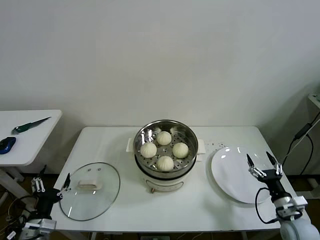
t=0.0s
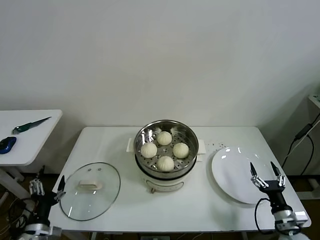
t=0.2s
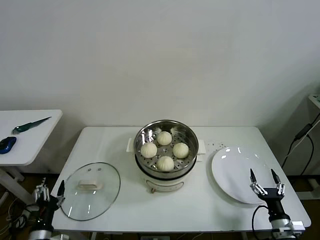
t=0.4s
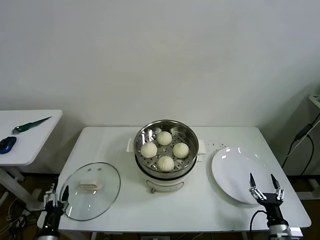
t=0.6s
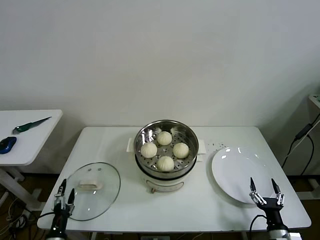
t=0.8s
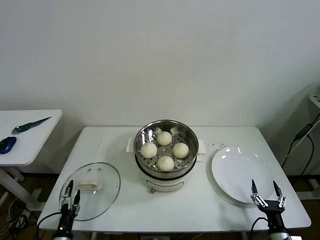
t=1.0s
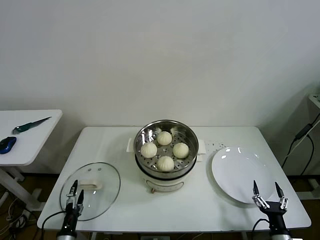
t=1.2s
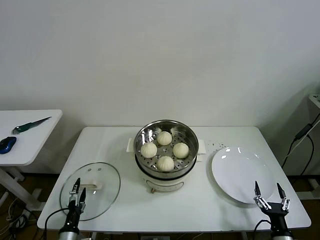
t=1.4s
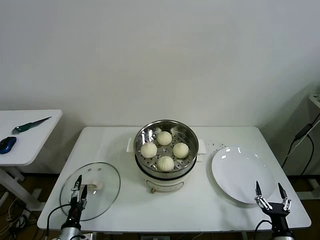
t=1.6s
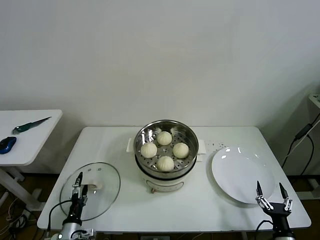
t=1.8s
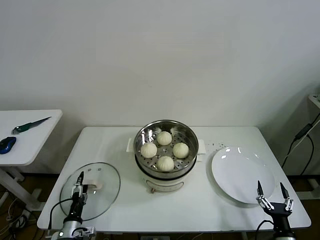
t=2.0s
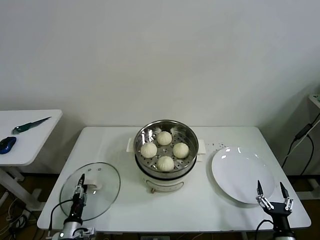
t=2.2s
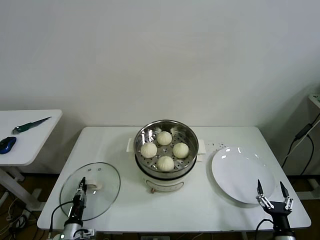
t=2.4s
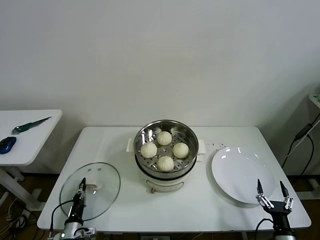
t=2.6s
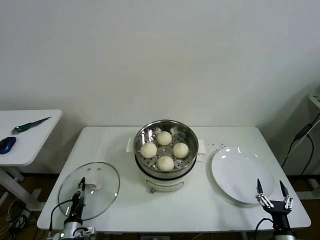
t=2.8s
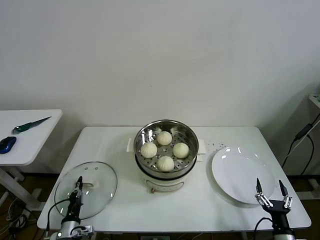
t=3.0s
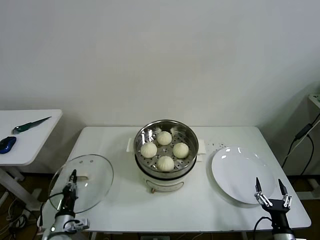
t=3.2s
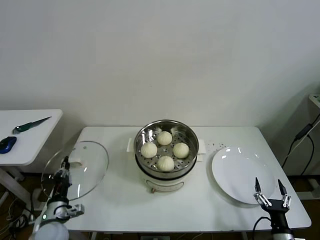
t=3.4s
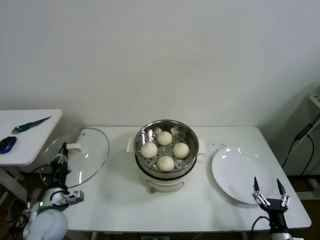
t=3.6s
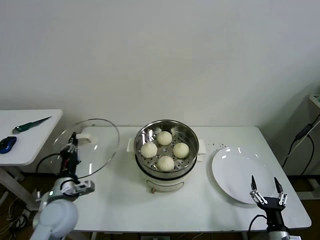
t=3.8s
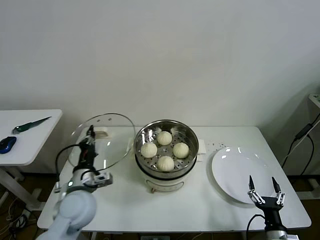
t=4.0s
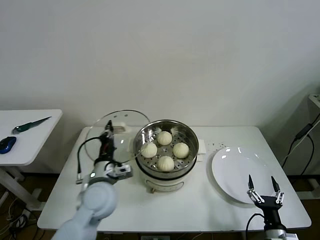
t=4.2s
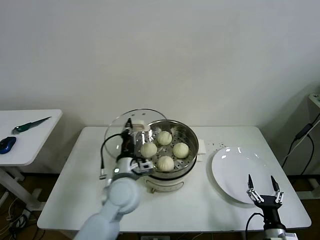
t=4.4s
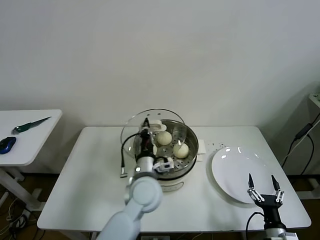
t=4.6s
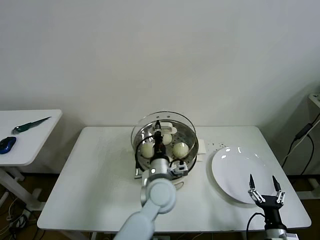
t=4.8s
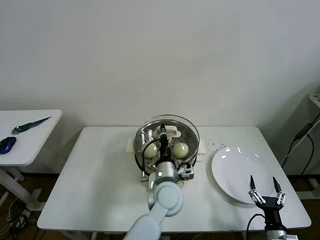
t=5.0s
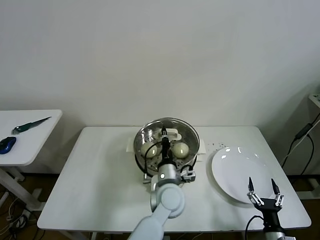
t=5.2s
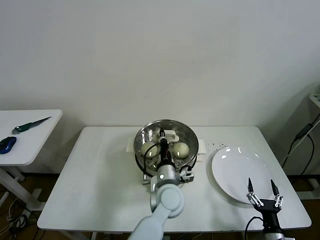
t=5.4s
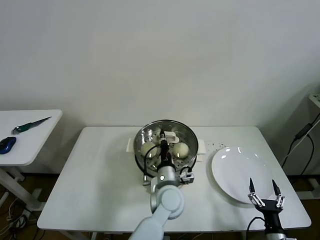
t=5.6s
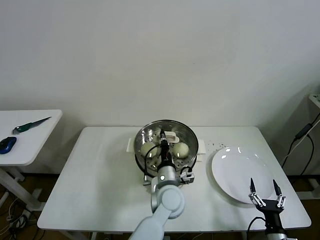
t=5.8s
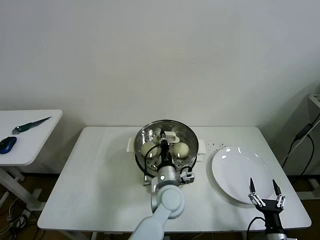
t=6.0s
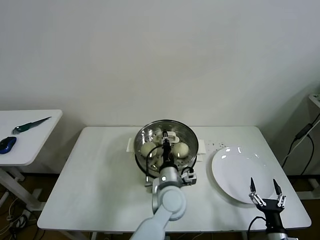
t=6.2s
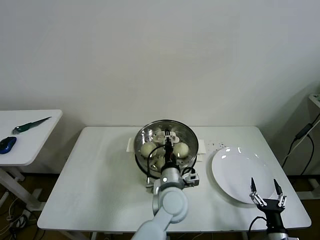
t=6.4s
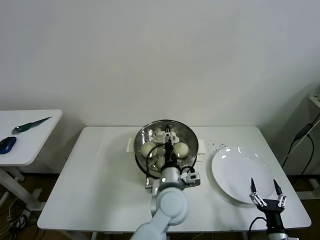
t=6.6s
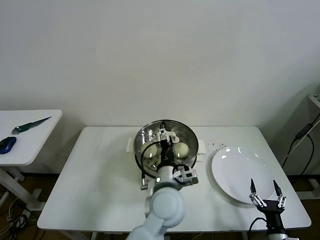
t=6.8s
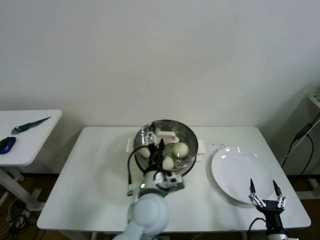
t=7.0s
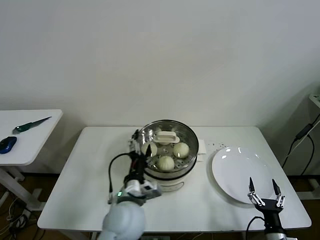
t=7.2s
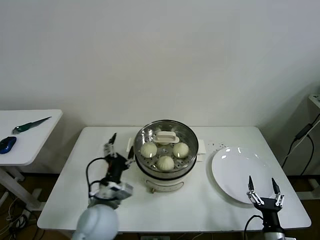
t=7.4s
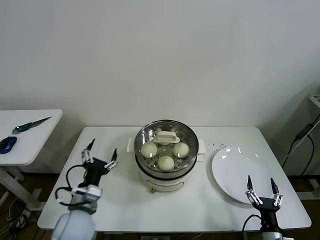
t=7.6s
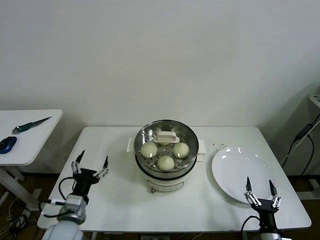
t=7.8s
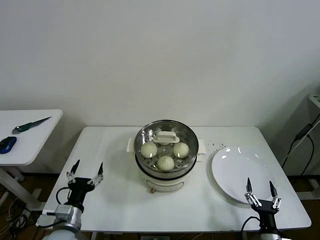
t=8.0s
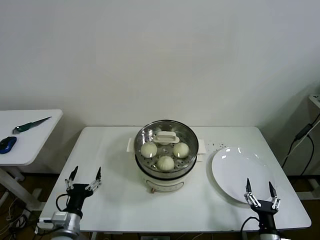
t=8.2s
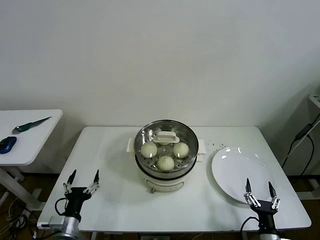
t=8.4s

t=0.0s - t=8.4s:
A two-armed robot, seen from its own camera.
Task of the whole recording: take steamed baozi put them in steamer then cover it.
Step, t=0.0s - t=2.6s: Grasp the pot lid with left gripper.
Step, t=2.8s - t=6.2s: Place the pot lid on the steamer with left gripper.
t=0.0s - t=1.4s: The left gripper travels downward by approximately 15 cm, while the right gripper shifts roughly 10 cm backward and downward.
t=1.4s - t=2.8s: The left gripper closes.
t=2.8s - t=4.2s: The left gripper is displaced upward and to the right by roughly 30 cm.
t=4.2s - t=5.6s: The left gripper is displaced to the right by about 20 cm.
t=5.6s - t=7.0s: The left gripper is displaced upward by some 5 cm, and opens its fingers.
t=7.0s - t=8.4s: The left gripper heads to the left and downward, covering about 30 cm.

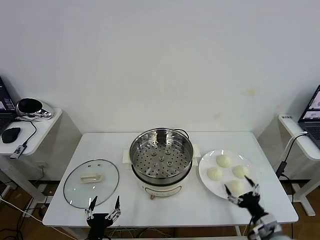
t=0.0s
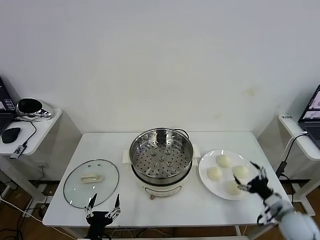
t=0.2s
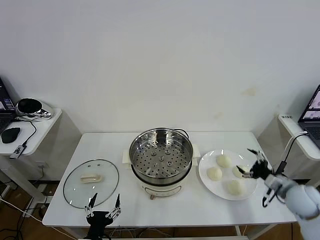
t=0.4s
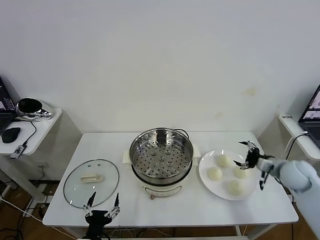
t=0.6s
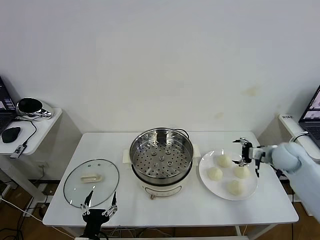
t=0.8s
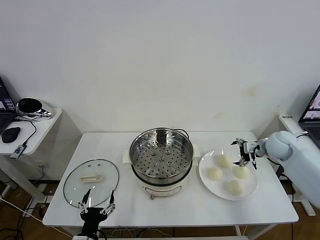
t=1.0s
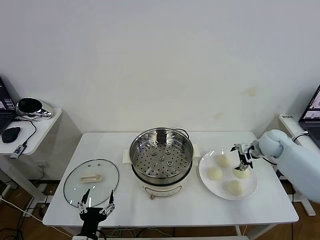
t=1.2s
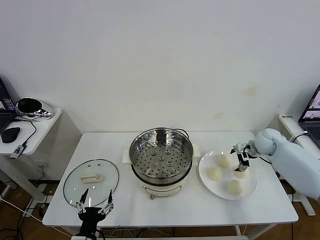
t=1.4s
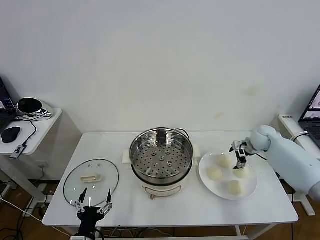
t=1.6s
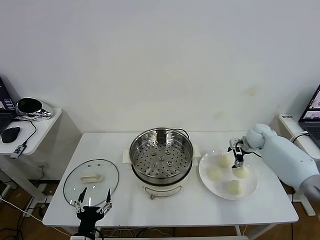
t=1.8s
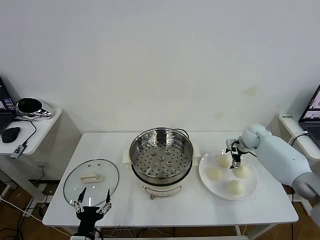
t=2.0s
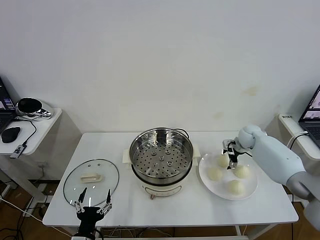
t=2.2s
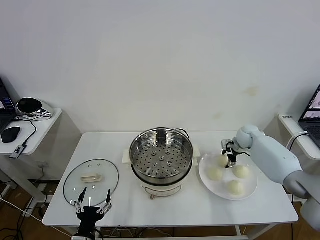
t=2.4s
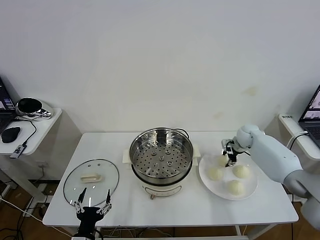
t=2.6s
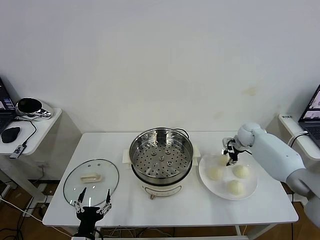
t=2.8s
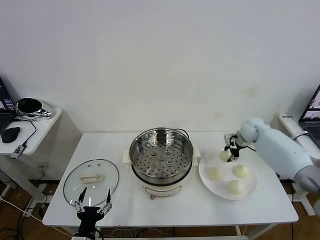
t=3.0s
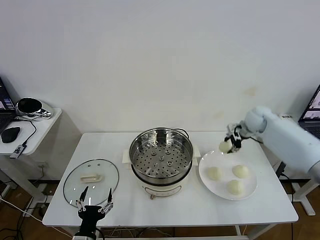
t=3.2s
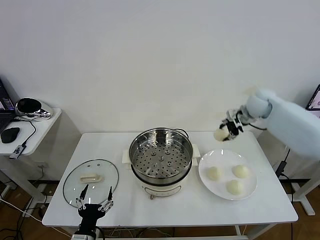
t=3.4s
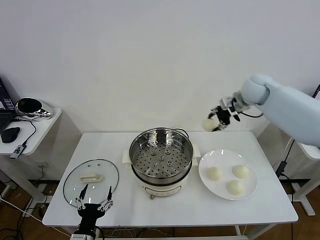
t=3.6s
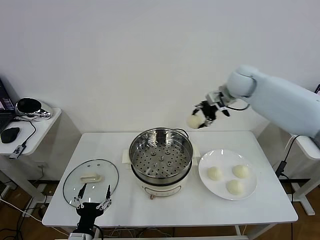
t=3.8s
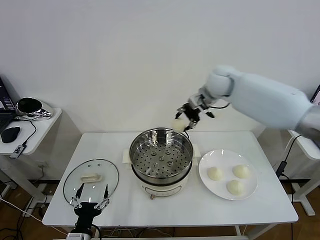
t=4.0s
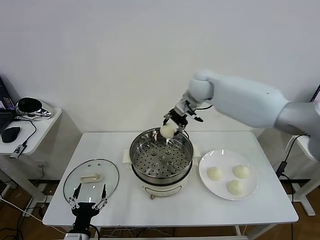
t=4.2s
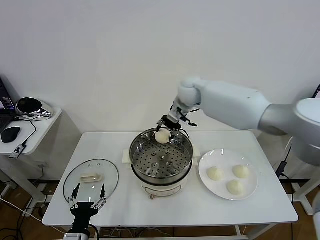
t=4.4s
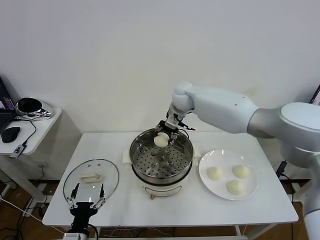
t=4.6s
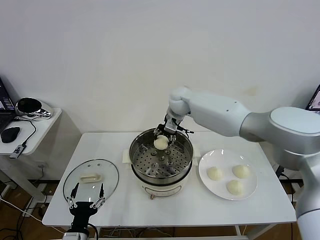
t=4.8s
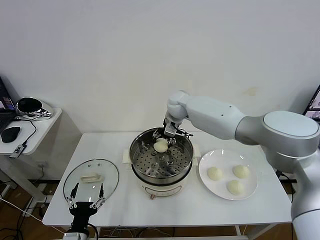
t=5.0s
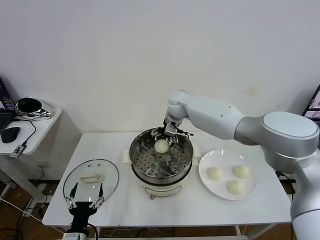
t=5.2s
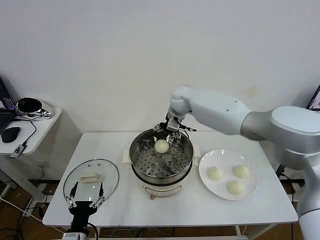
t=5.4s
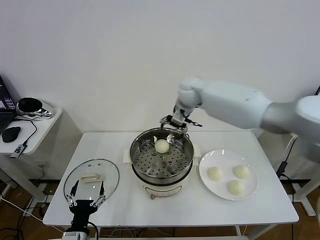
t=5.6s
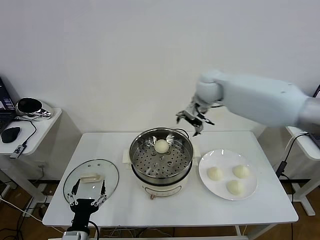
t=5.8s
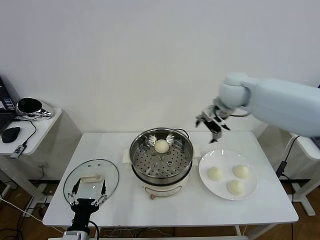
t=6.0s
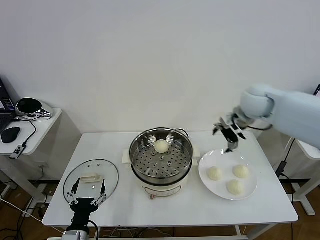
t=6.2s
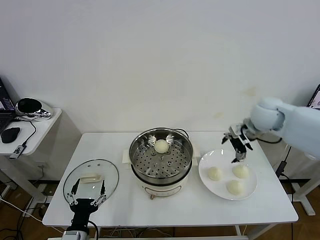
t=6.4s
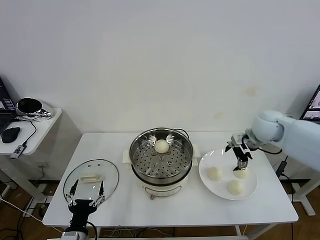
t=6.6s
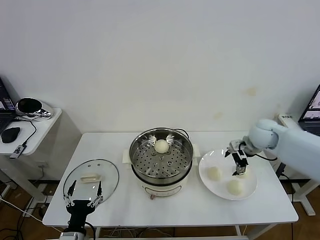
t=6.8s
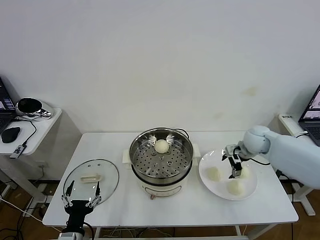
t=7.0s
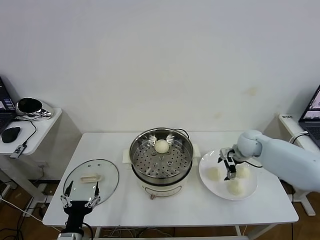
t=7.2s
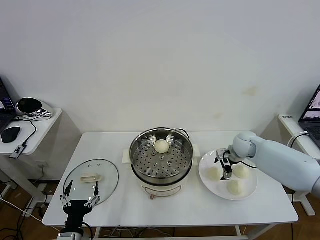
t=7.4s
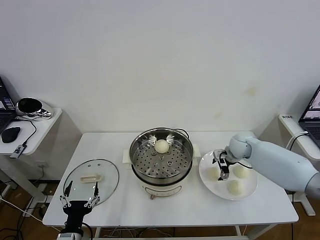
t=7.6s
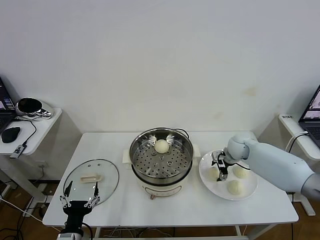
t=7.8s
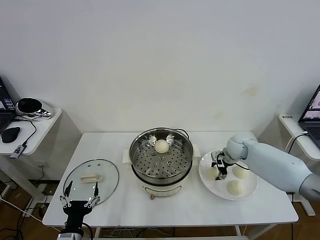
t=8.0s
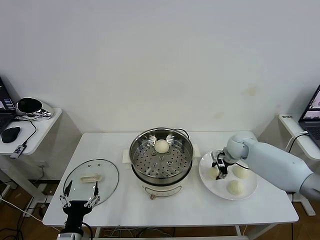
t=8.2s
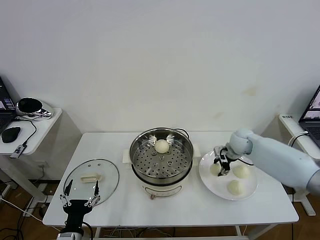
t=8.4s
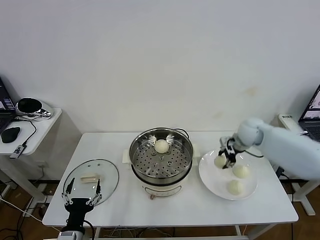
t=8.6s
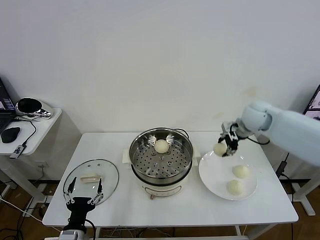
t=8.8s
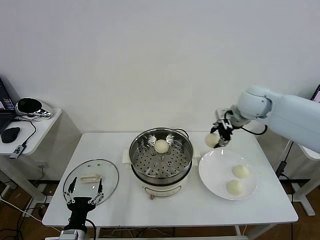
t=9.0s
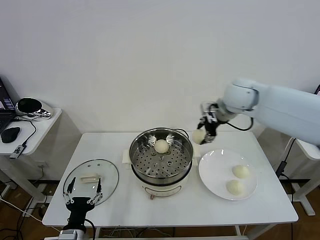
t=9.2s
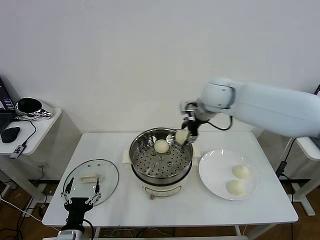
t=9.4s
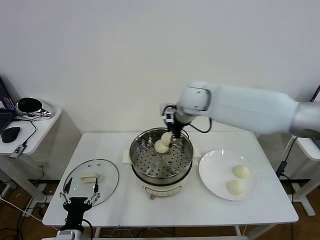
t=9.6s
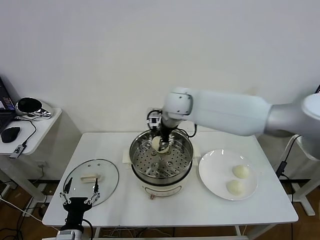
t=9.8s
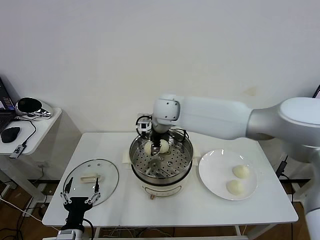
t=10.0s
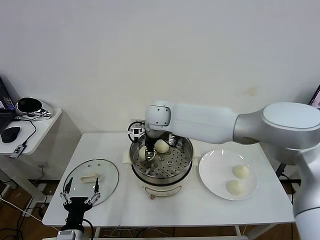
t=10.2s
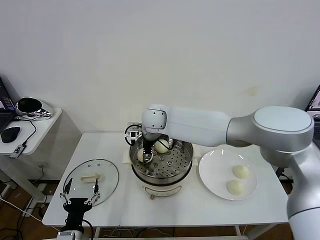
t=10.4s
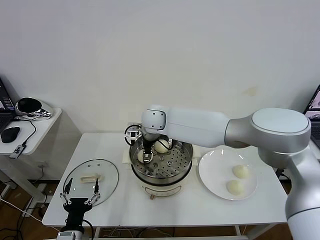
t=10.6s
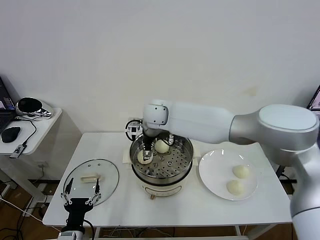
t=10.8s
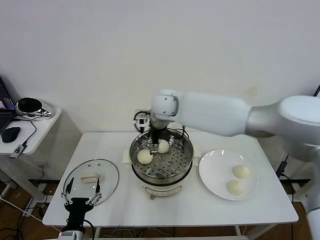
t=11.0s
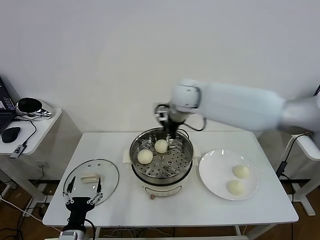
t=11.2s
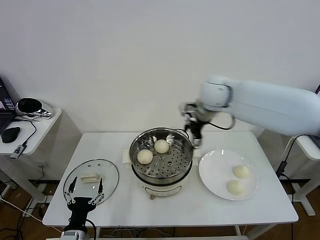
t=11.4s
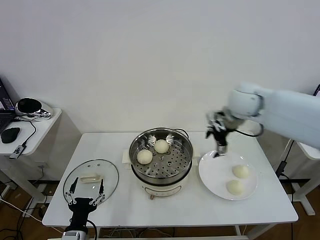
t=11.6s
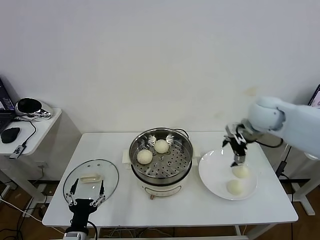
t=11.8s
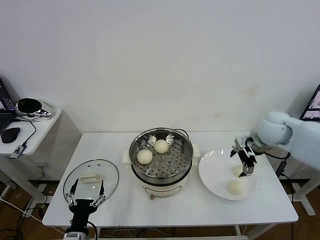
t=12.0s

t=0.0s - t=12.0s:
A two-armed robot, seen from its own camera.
Task of the whole recording: take steamed baozi put them in steamer then cover it.
Step, t=0.0s - t=2.4s: Grasp the baozi in the plate with right gripper.
Step, t=2.8s - t=5.4s: Place the baozi on the steamer with right gripper.
Step, t=5.6s - t=8.0s: Grasp the baozi in the plate with right gripper.
Step, t=8.2s - t=10.8s: Place the baozi on the steamer with right gripper.
t=1.6s - t=3.0s: The right gripper travels upward by roughly 5 cm, and closes its fingers.
t=3.0s - t=4.4s: The right gripper is displaced to the left by approximately 30 cm.
t=4.4s - t=6.0s: The right gripper moves to the right and backward, approximately 20 cm, and opens up.
t=6.0s - t=7.6s: The right gripper is displaced downward by about 25 cm.
t=7.6s - t=9.0s: The right gripper goes some 25 cm upward, and closes its fingers.
t=9.0s - t=10.4s: The right gripper travels to the left by about 25 cm.
t=10.4s - t=12.0s: The right gripper is displaced to the right by some 35 cm, and opens up.

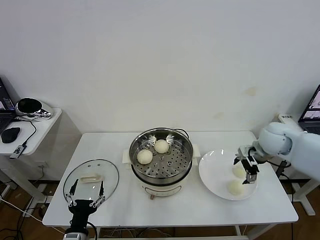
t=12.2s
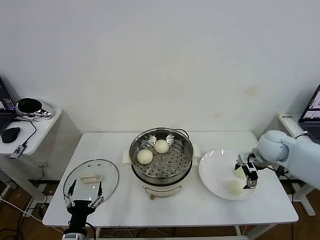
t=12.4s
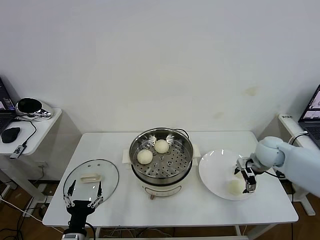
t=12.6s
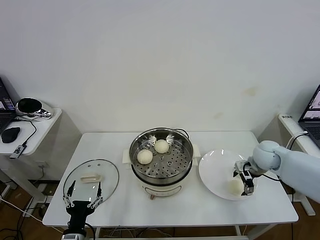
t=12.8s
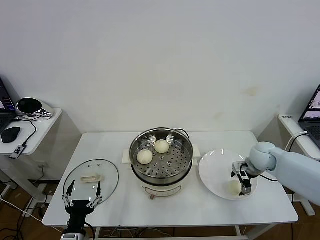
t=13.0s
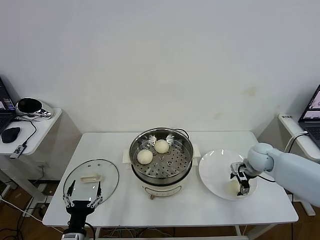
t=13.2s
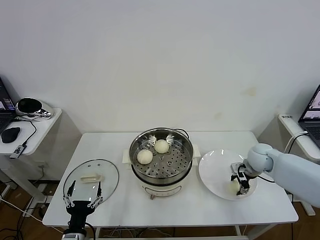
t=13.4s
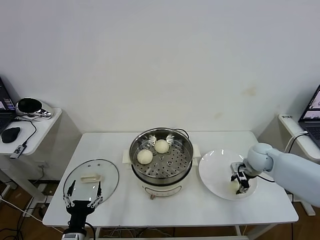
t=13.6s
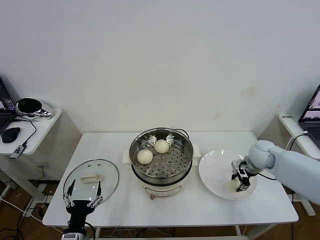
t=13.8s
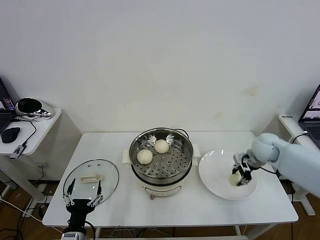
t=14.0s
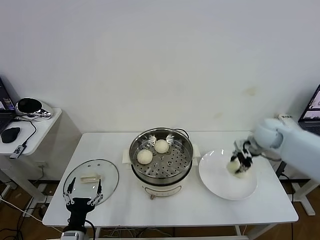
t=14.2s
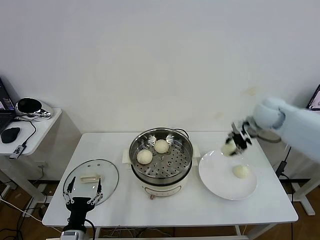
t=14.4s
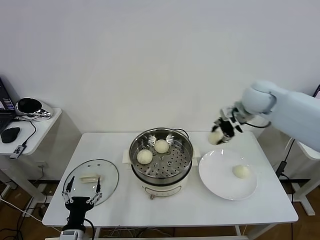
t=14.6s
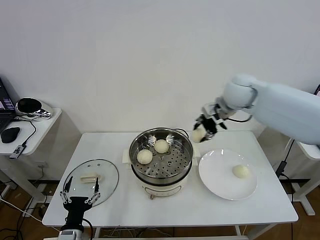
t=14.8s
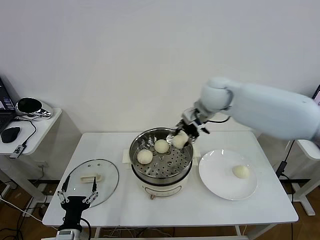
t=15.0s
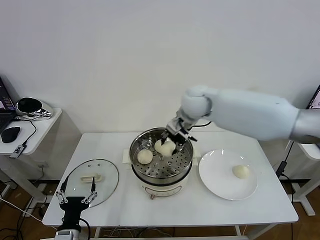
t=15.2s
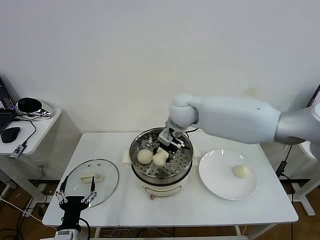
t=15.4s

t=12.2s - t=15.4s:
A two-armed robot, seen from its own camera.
Task of the whole recording: take steamed baozi put them in steamer then cover it.
t=12.2s - t=13.8s: The right gripper is displaced downward by roughly 5 cm, and closes.
t=13.8s - t=15.4s: The right gripper is displaced to the left and upward by about 35 cm.
